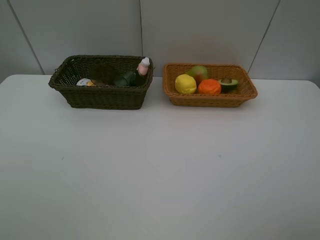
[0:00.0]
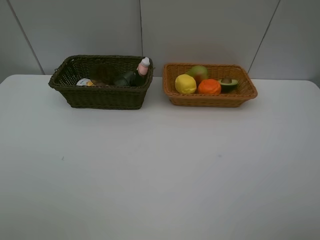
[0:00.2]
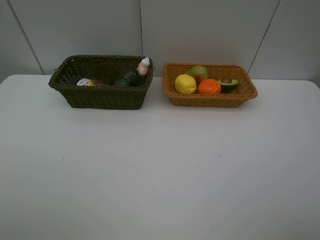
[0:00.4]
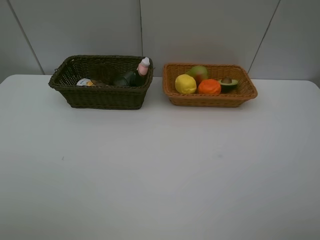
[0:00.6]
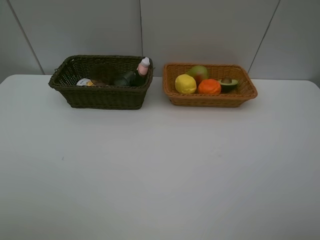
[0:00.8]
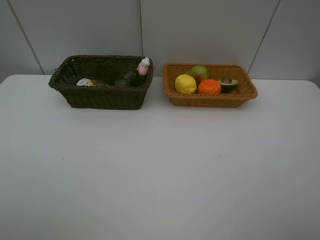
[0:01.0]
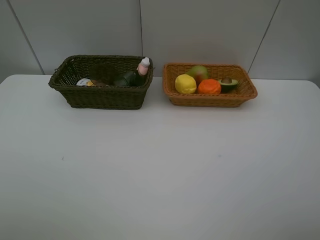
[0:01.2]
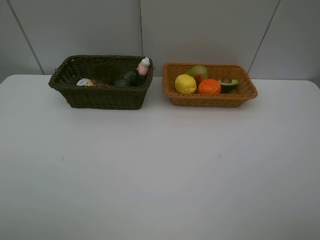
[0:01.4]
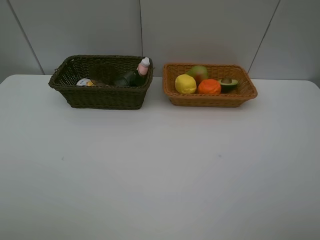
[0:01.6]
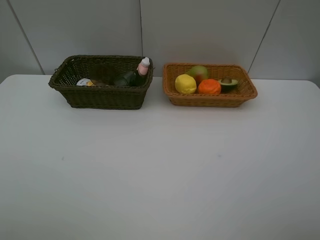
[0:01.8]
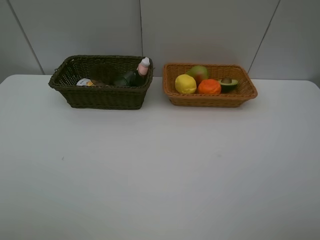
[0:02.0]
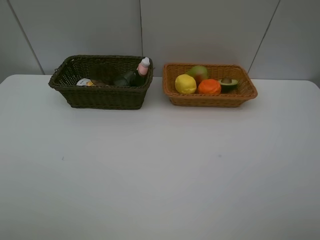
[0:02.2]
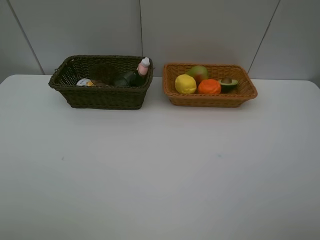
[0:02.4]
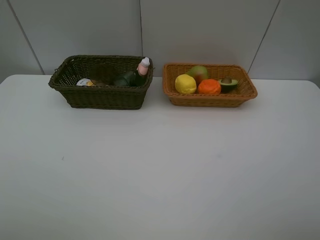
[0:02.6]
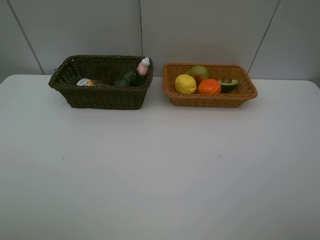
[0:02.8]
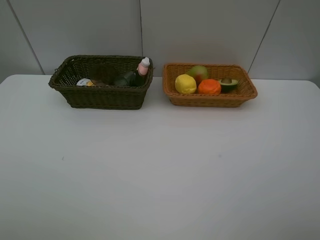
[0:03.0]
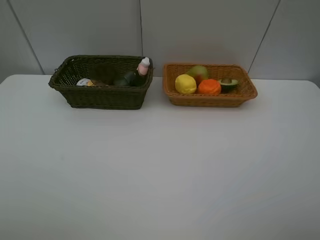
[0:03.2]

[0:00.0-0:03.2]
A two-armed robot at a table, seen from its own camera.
Task of the whole recording: Place multiple objects separately in different baskets.
0:01.6 to 0:03.2: The two grippers keep their place.
